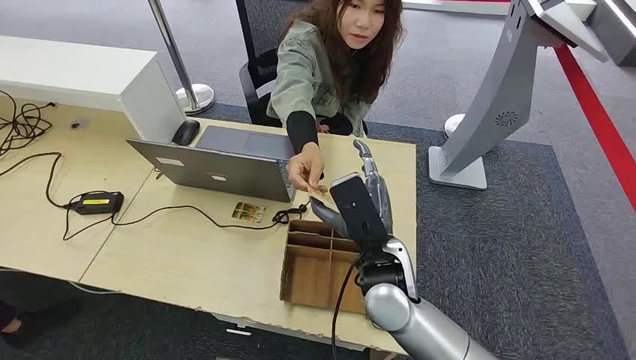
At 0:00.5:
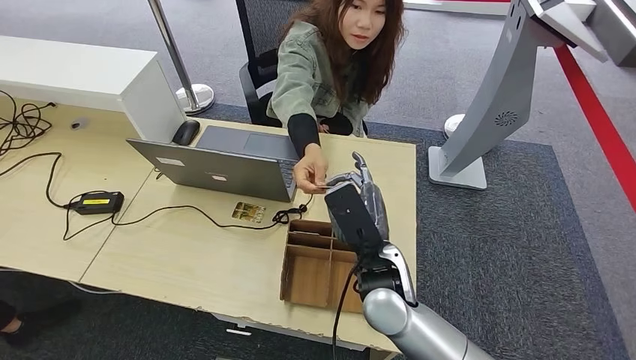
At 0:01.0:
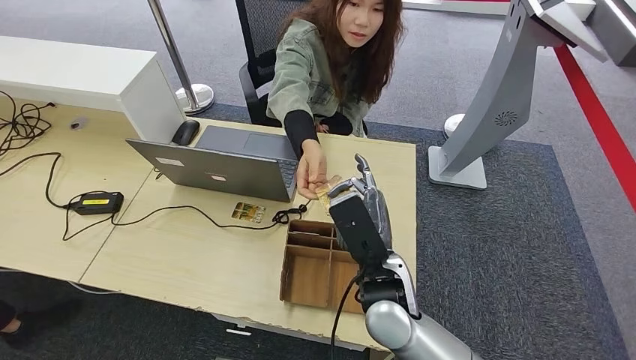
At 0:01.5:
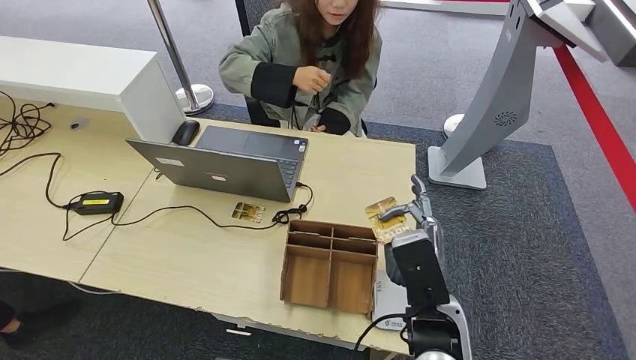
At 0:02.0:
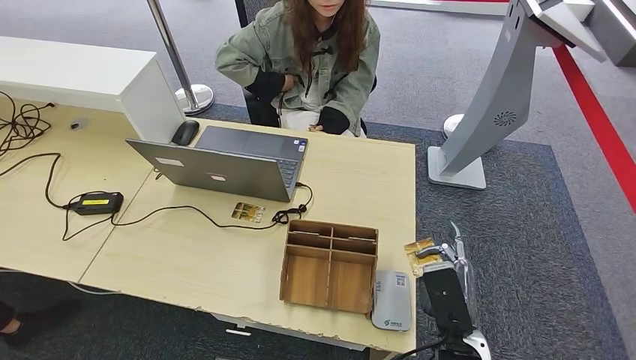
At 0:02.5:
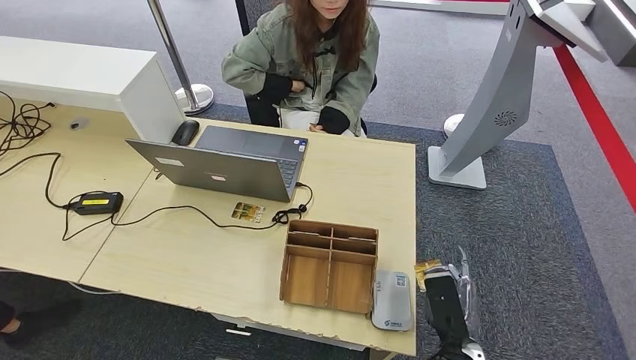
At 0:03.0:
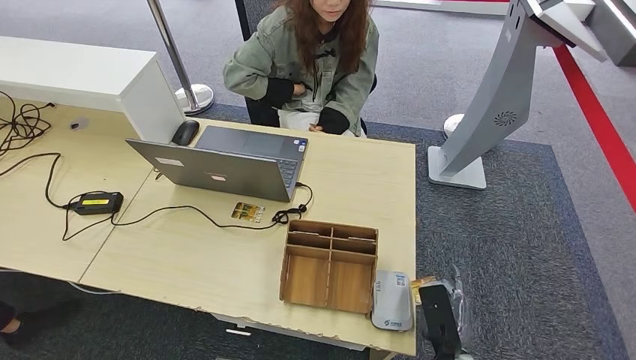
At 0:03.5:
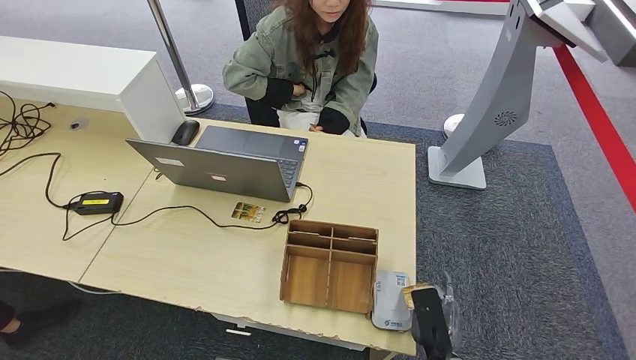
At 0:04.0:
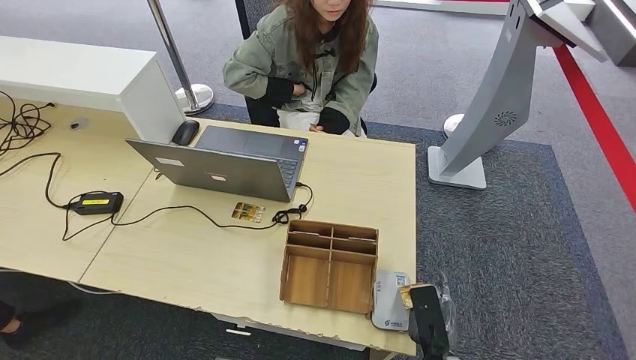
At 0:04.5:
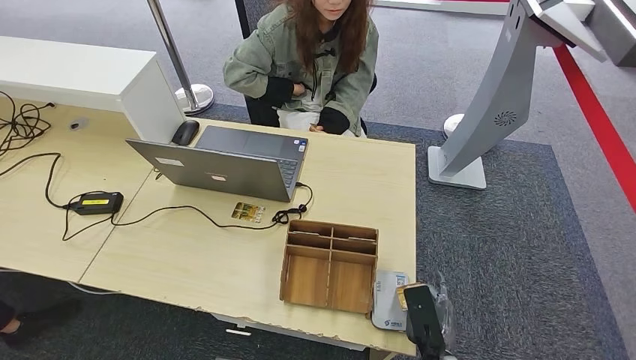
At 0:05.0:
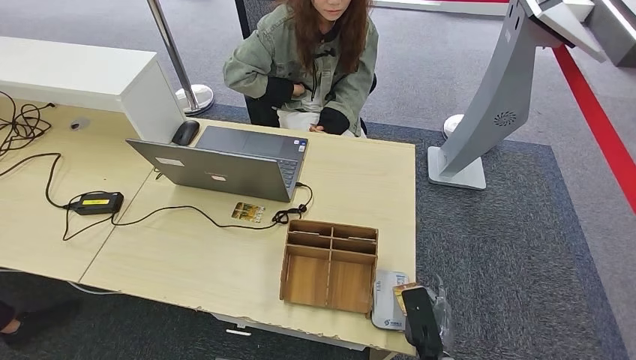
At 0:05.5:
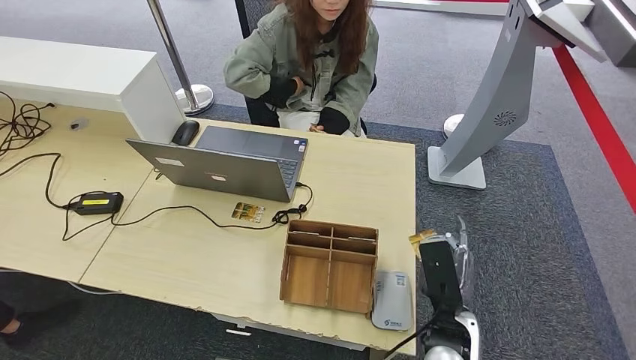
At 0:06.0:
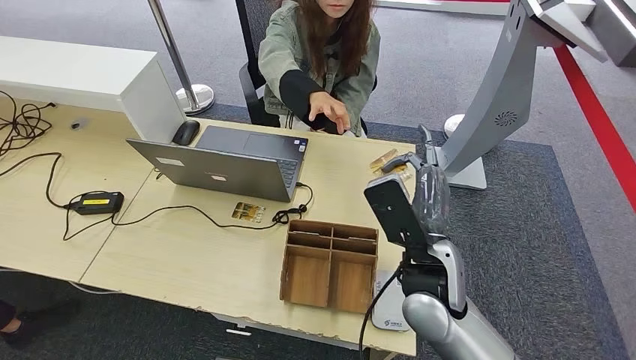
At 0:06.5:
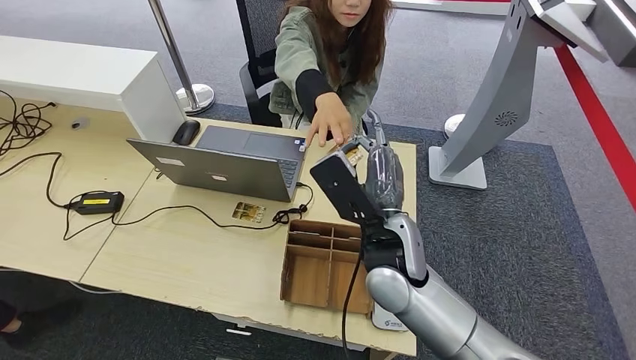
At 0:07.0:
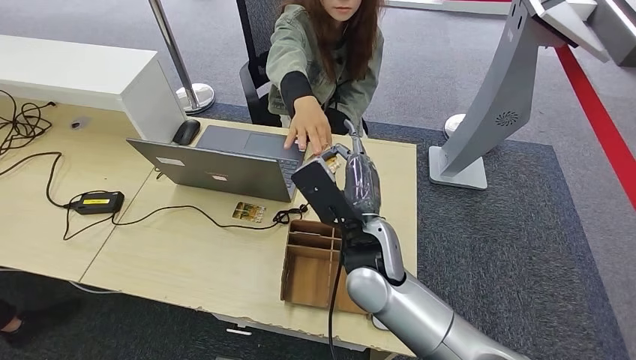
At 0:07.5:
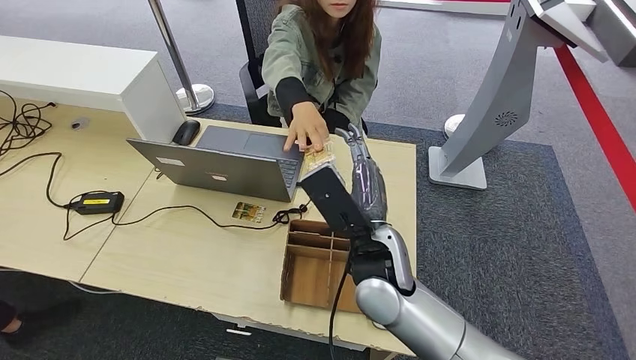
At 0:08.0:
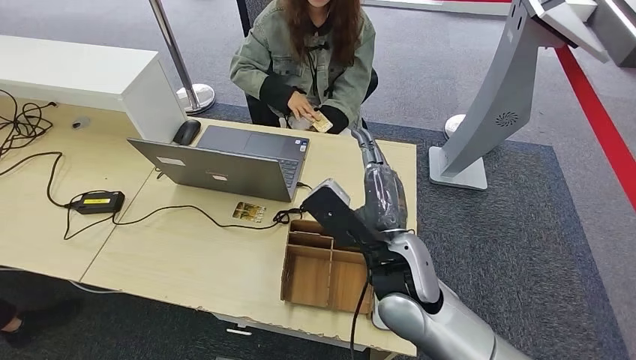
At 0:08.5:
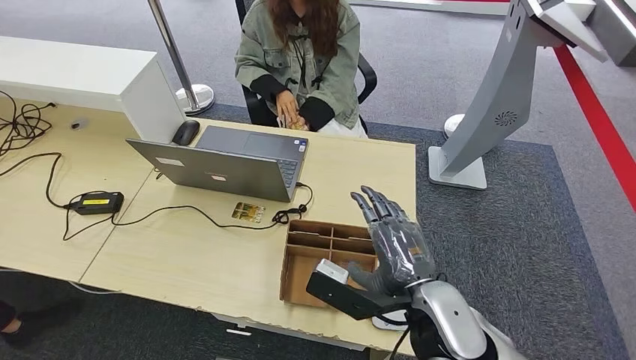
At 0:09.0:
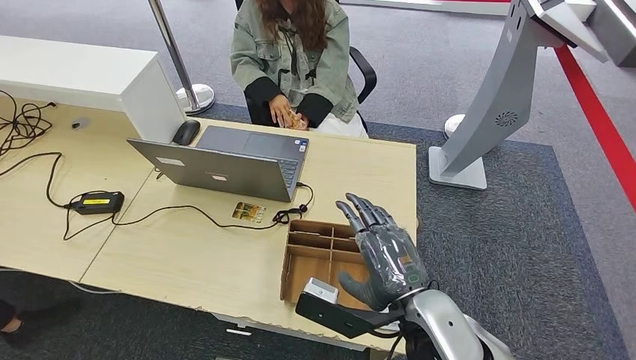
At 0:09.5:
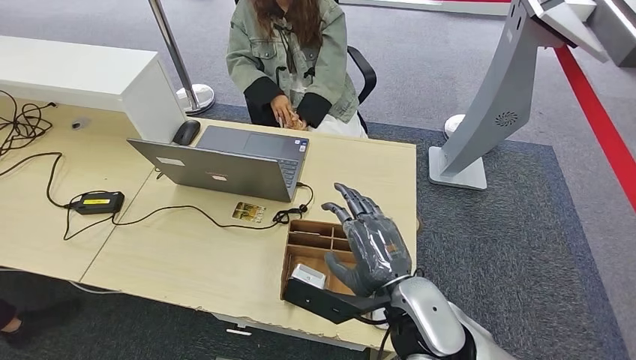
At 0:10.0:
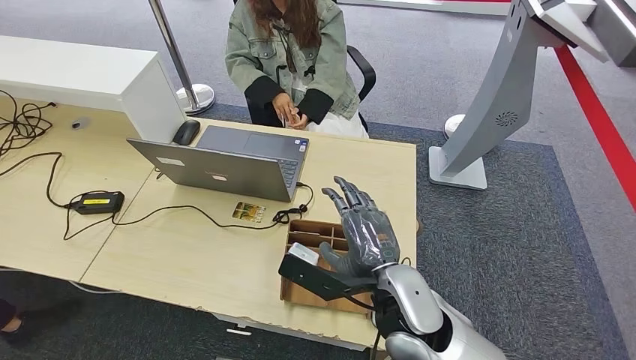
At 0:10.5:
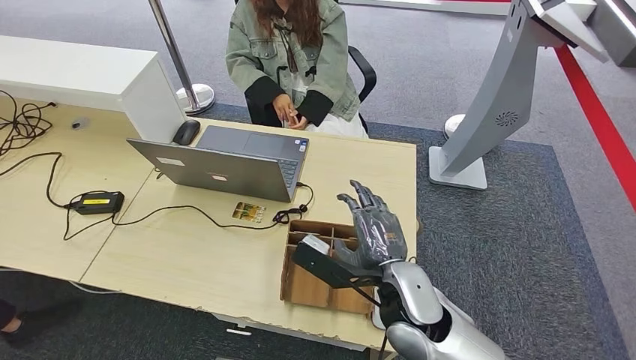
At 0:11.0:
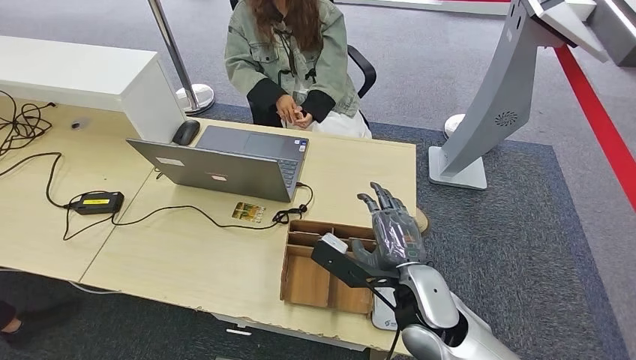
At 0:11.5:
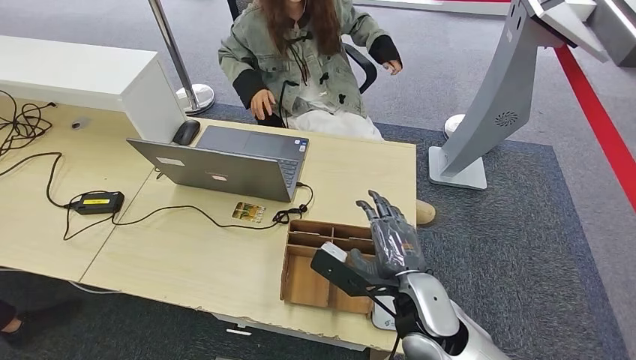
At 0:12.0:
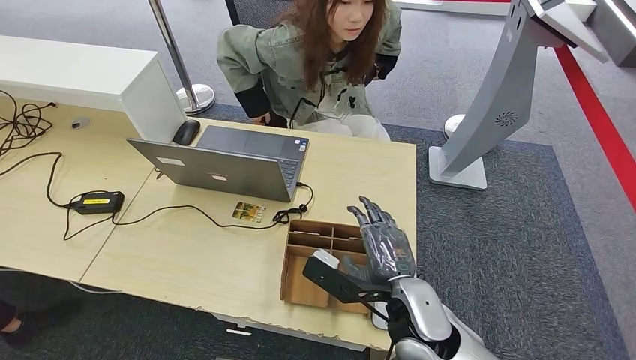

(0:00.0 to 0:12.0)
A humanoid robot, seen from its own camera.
Step, 0:00.0 - 0:01.0: Take the ID card from the person's hand.
Step, 0:01.5 - 0:05.0: Place the ID card on the card reader.
Step, 0:05.5 - 0:07.5: Hand the ID card to the person.
0:02.0 - 0:04.0: The right hand shifts some 10 cm downward.
0:04.0 - 0:06.0: The right hand travels upward and forward by some 25 cm.
0:06.0 - 0:08.0: The right hand shifts some 5 cm to the left.
0:10.0 - 0:12.0: The right hand ends up roughly 5 cm from where it was.

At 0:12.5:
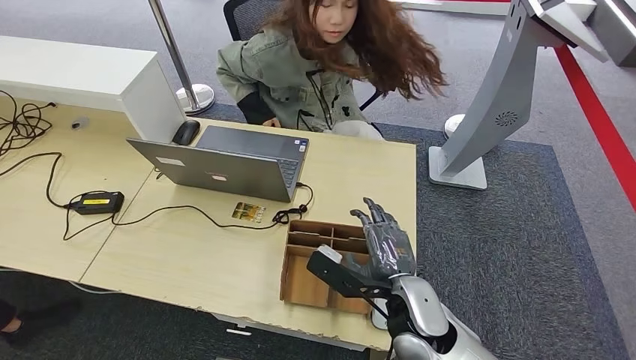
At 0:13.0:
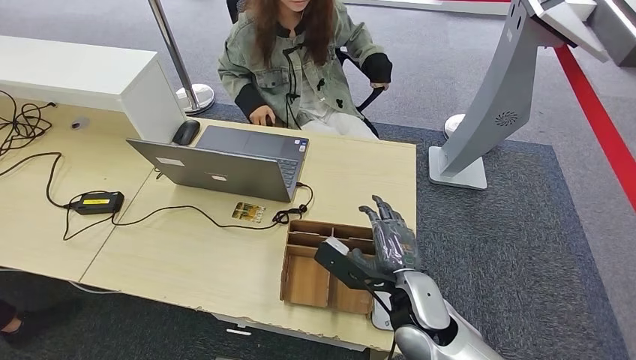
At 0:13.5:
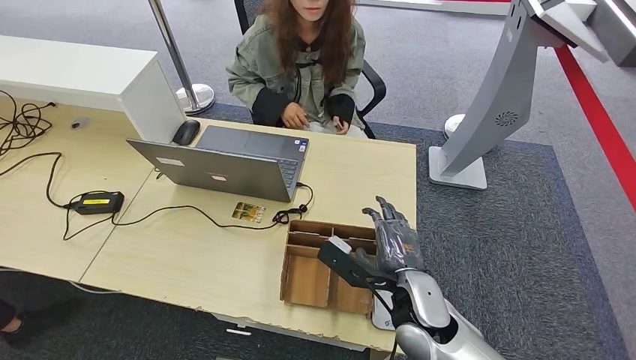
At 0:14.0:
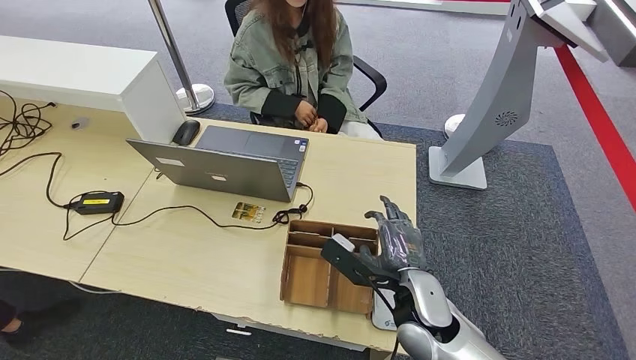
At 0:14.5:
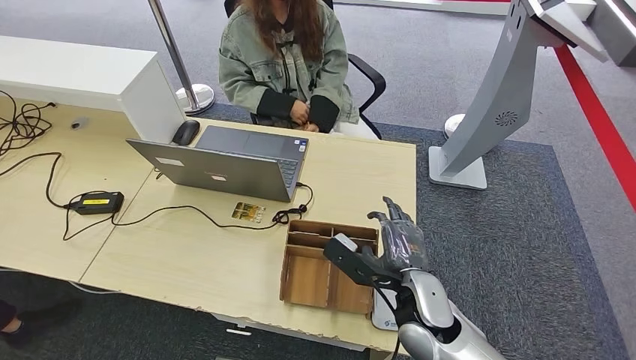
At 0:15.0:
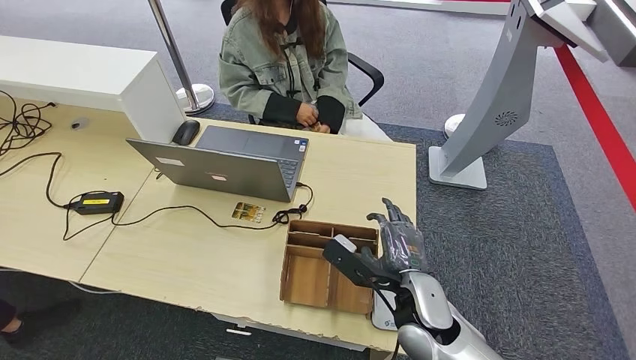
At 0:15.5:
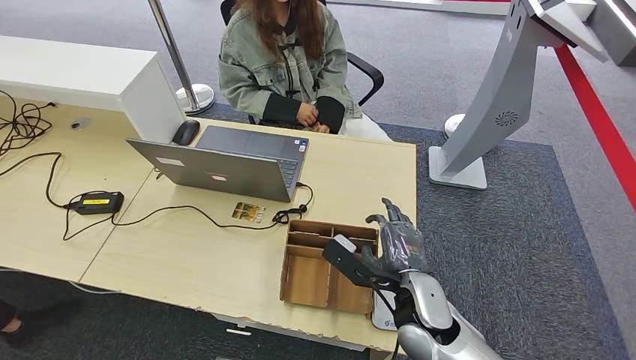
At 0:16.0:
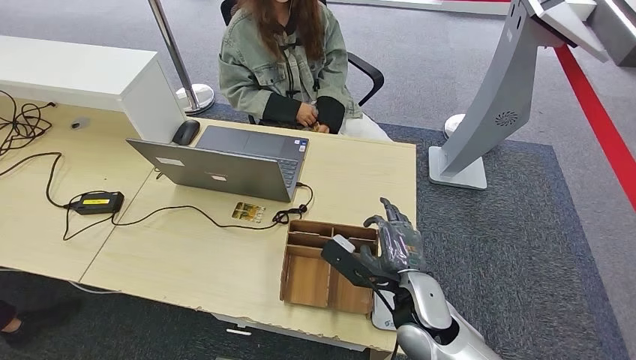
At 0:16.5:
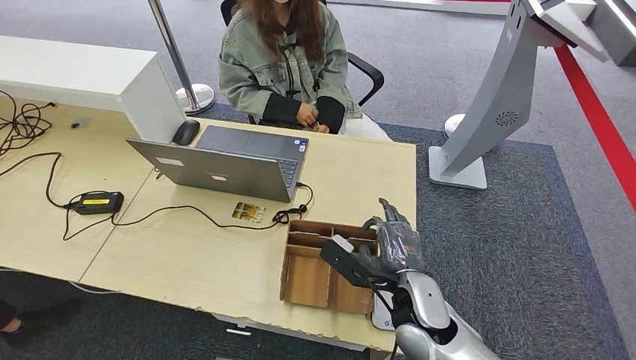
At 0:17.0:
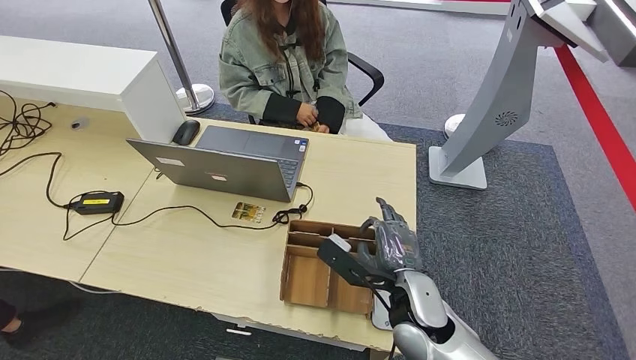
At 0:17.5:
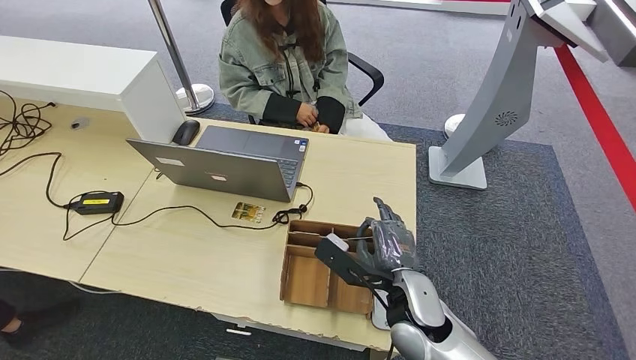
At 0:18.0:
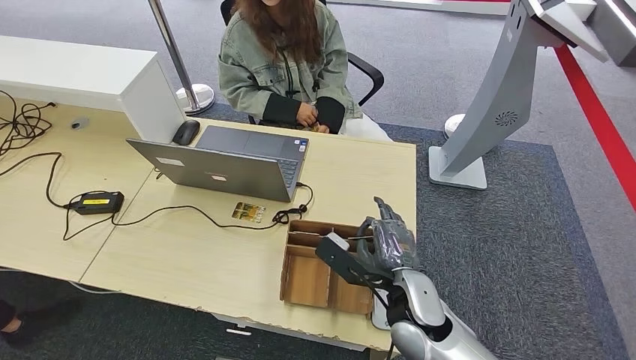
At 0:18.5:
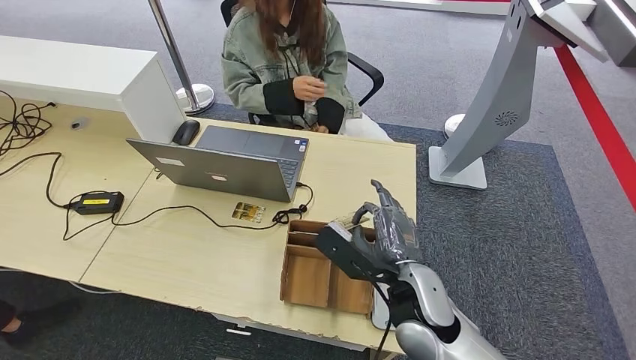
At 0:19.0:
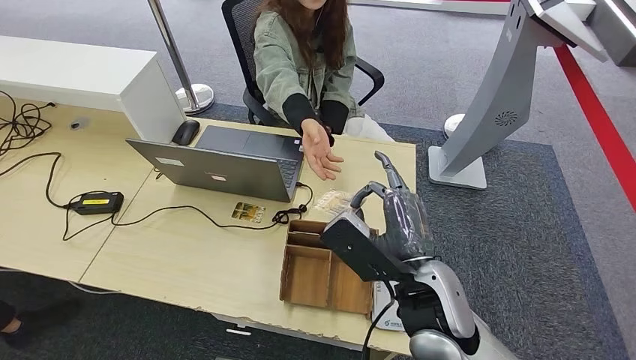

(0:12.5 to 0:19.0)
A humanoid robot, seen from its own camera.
Step, 0:12.5 - 0:18.0: Pick up the room key from the key card box.
Step, 0:18.5 - 0:19.0: Hand the room key to the person.
0:12.5 - 0:14.5: The hands make only small movements.
0:14.5 - 0:17.0: The two hands keep their place.
0:17.0 - 0:19.0: The right hand travels upward by some 10 cm.
